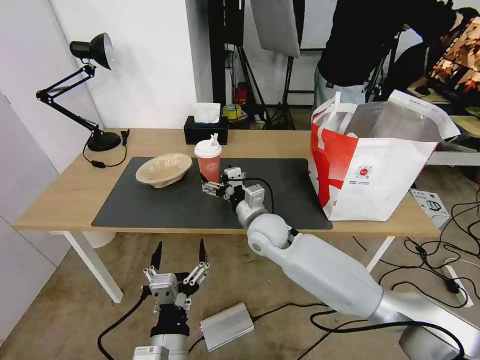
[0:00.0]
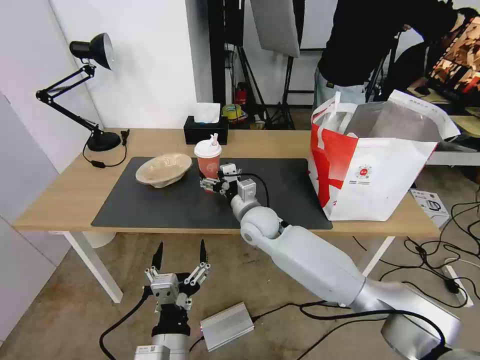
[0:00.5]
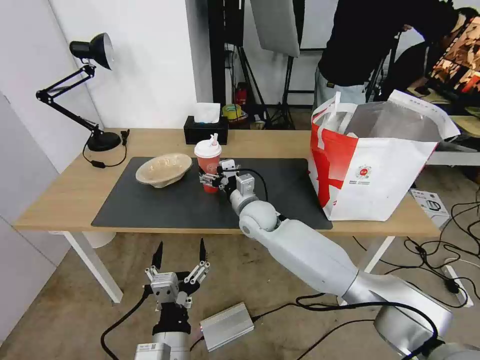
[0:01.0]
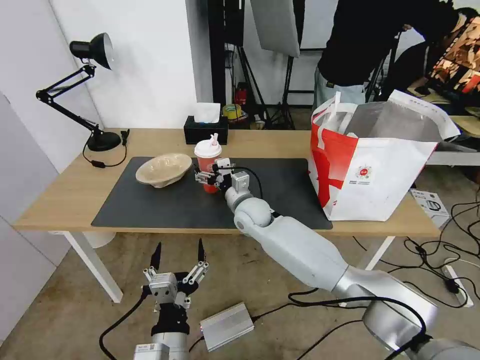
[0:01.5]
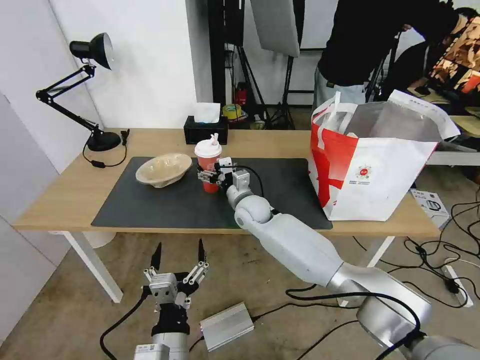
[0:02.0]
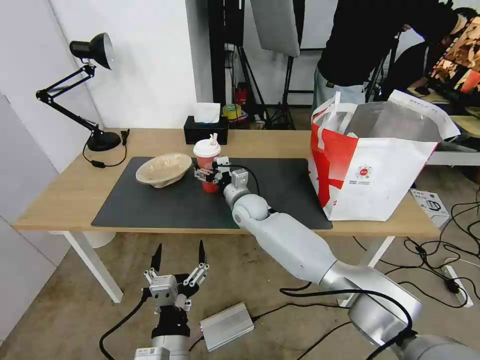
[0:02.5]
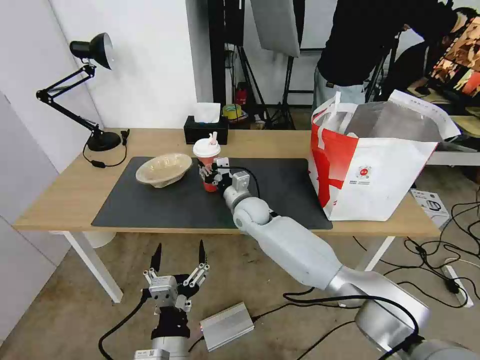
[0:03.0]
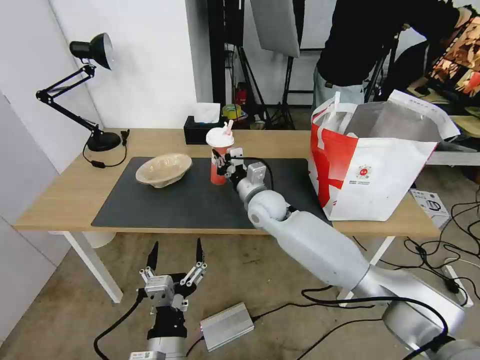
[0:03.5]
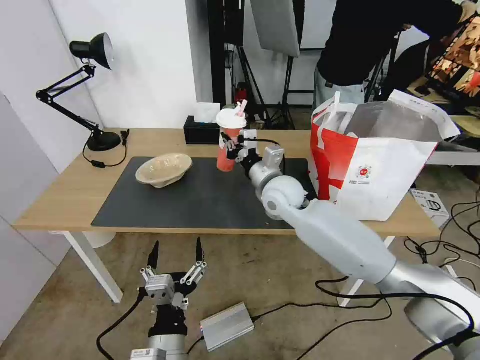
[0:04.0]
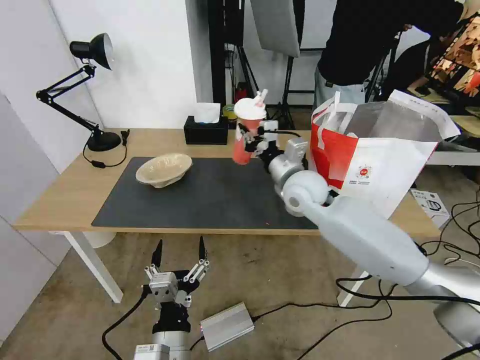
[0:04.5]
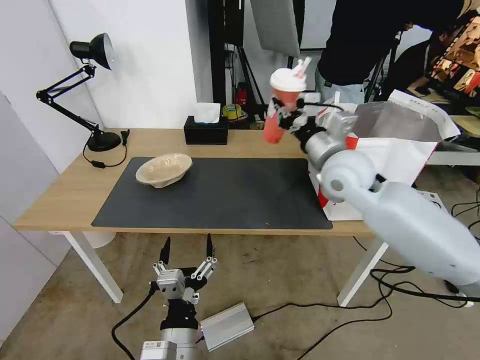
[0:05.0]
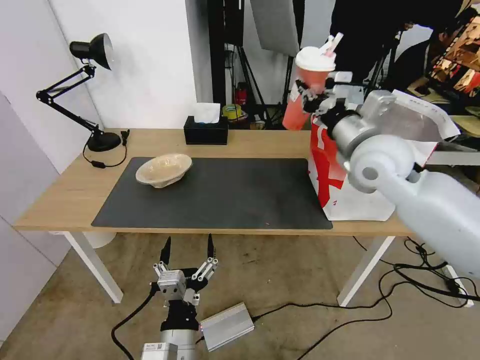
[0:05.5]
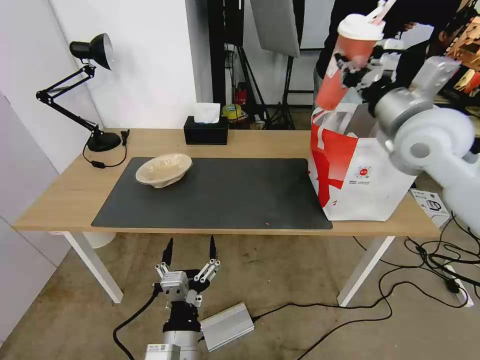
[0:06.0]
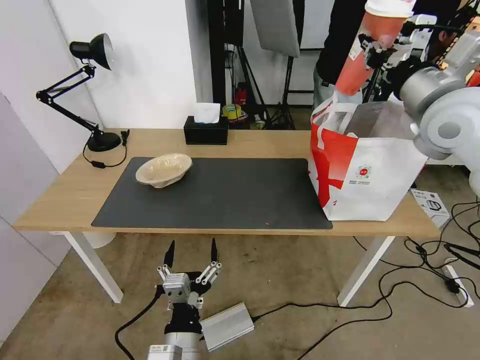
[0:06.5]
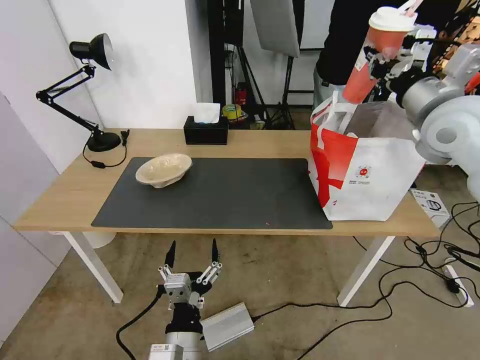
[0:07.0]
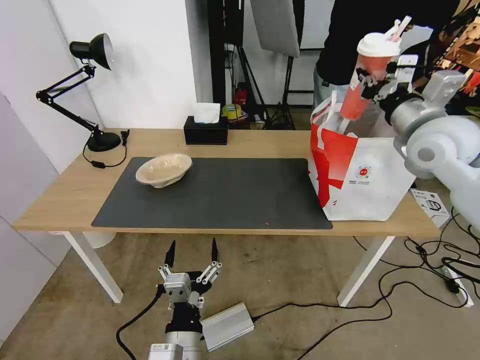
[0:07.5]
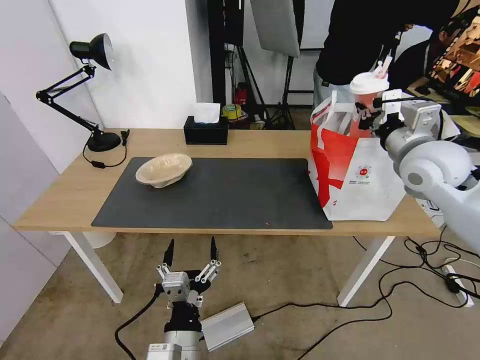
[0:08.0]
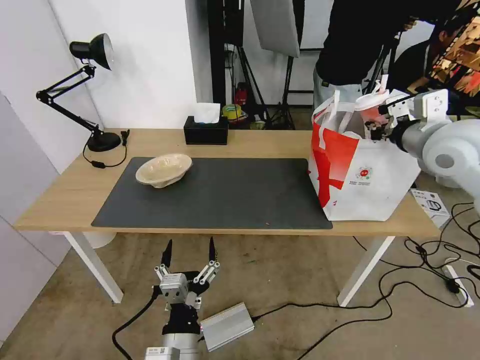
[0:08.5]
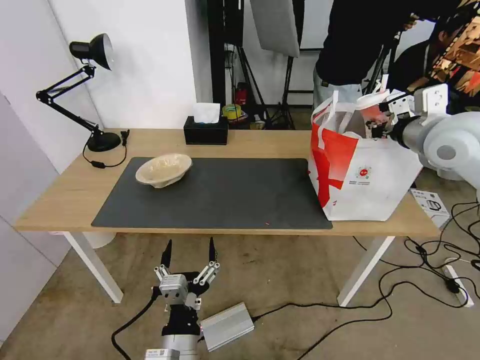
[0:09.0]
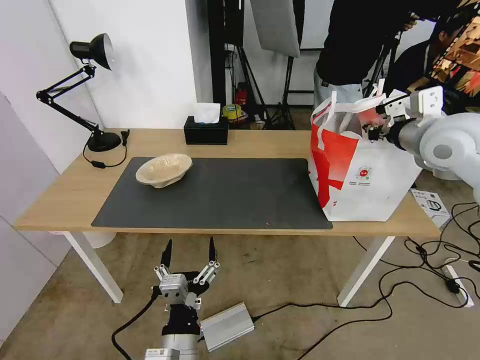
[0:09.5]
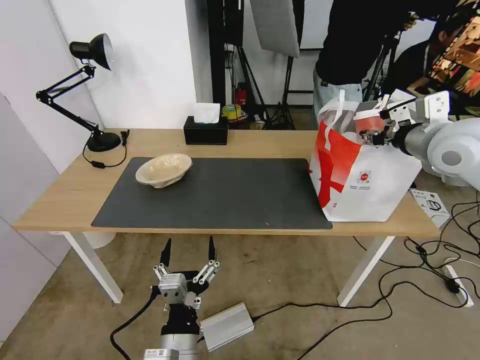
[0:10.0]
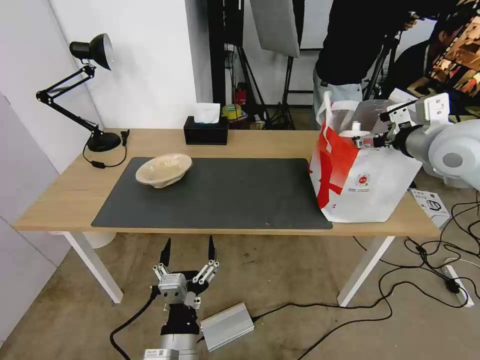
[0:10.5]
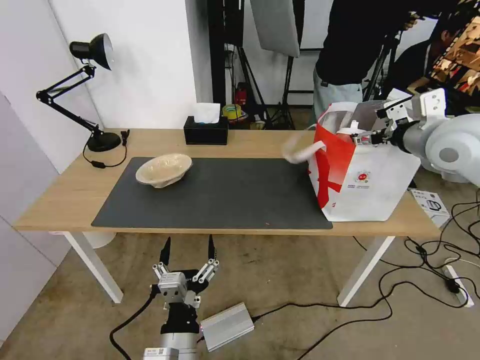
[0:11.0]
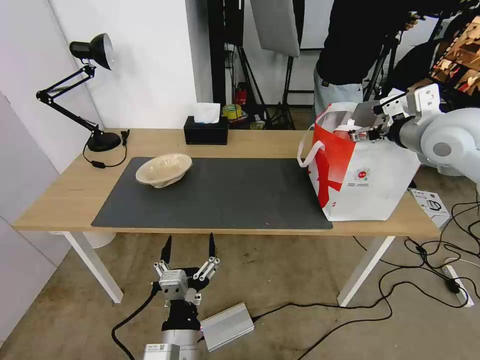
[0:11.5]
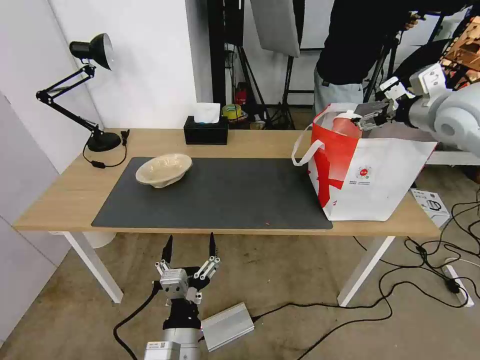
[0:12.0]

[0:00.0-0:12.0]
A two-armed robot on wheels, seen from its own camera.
Task of the whole recording: Pick up the trash from the table and place it into the takeout bag.
0.0 to 2.0 s: The right gripper travels forward by about 10 cm.
2.0 to 4.0 s: The right gripper travels upward and to the right by about 10 cm, and closes up.
4.0 to 6.0 s: The right gripper travels to the right and upward by some 30 cm.
6.0 to 8.0 s: The right gripper goes some 10 cm downward and to the right.
8.0 to 10.0 s: The right gripper changes place by approximately 5 cm, and opens.
10.0 to 12.0 s: The right gripper changes place by about 5 cm, and opens.

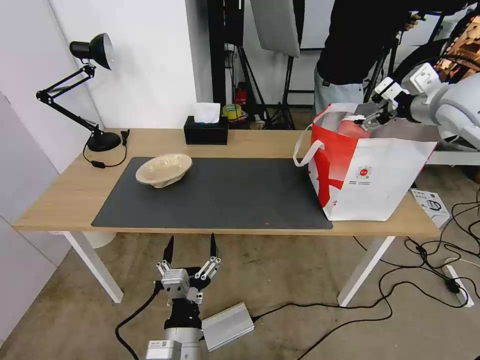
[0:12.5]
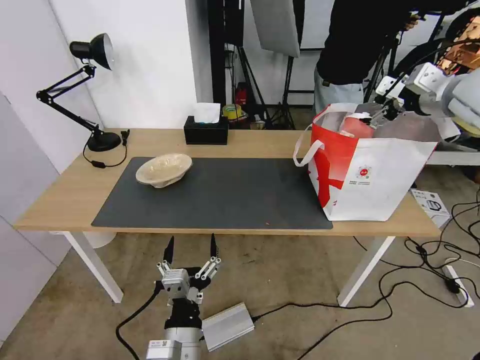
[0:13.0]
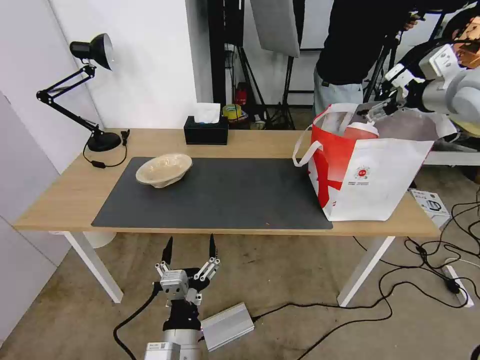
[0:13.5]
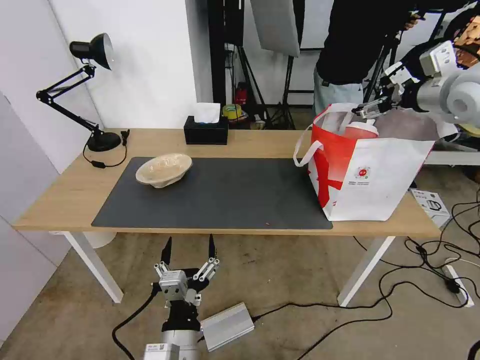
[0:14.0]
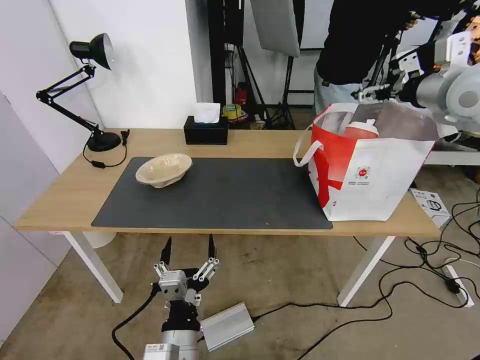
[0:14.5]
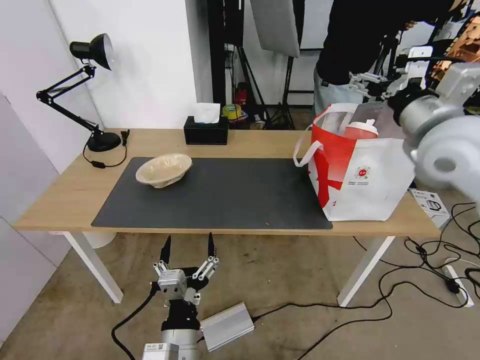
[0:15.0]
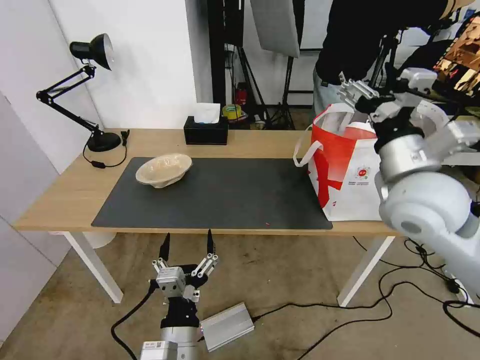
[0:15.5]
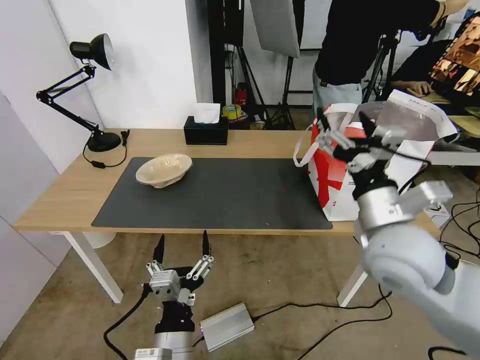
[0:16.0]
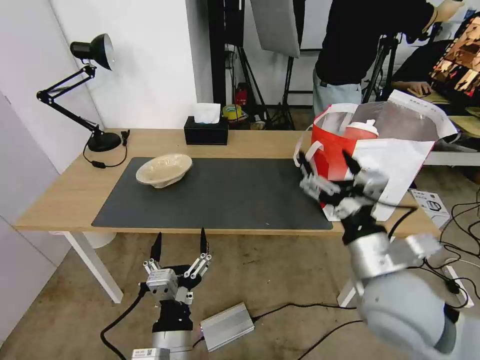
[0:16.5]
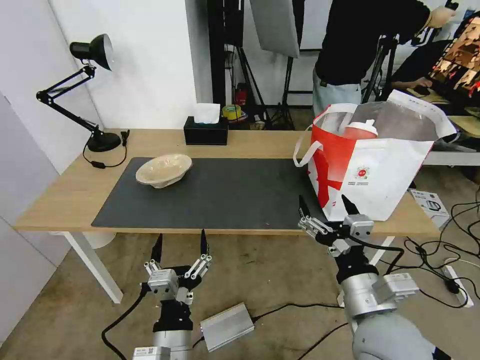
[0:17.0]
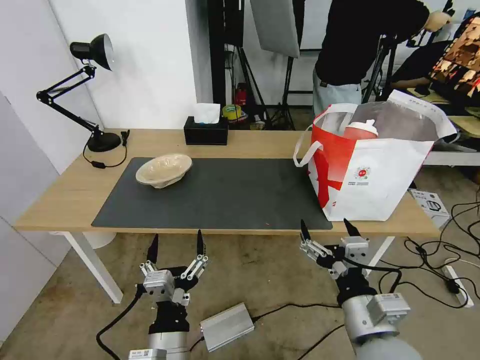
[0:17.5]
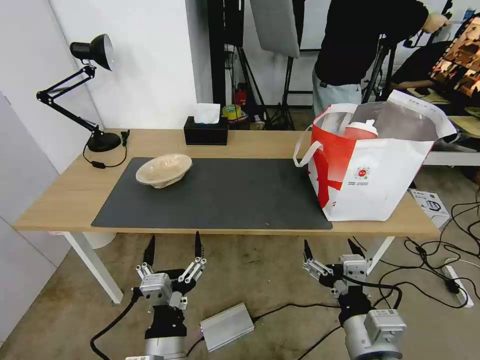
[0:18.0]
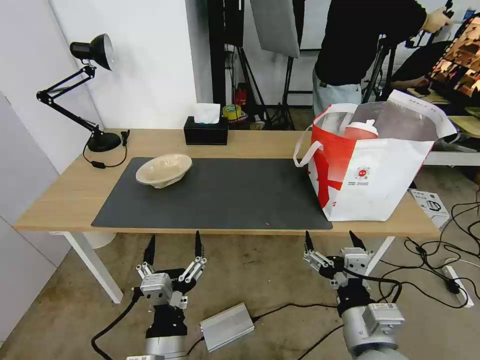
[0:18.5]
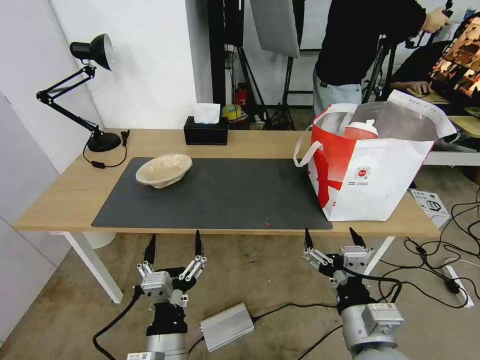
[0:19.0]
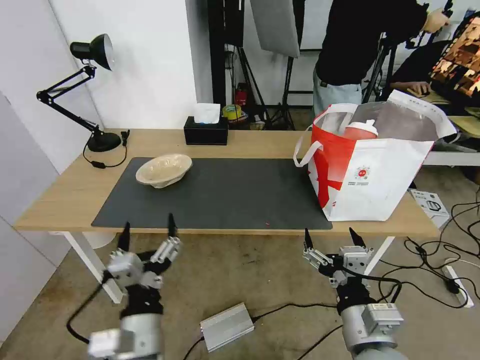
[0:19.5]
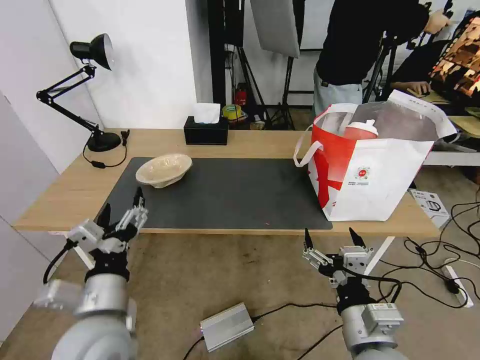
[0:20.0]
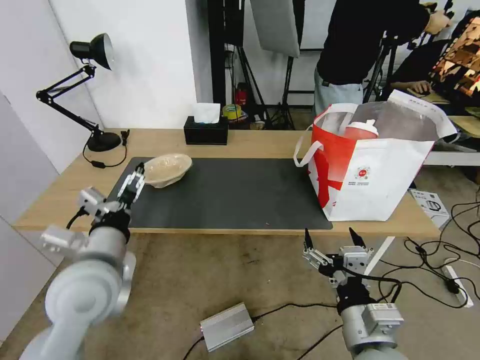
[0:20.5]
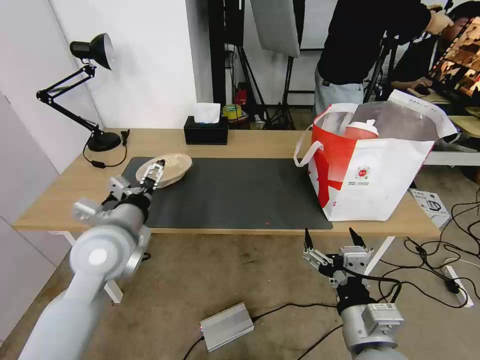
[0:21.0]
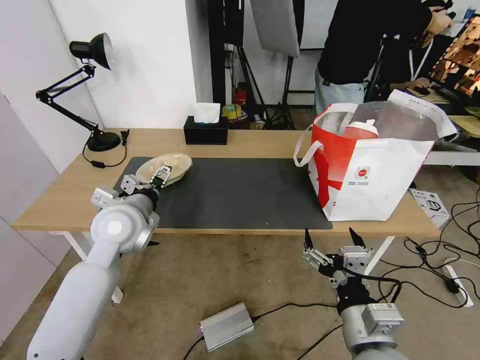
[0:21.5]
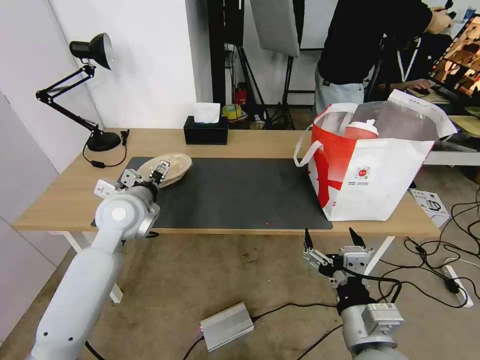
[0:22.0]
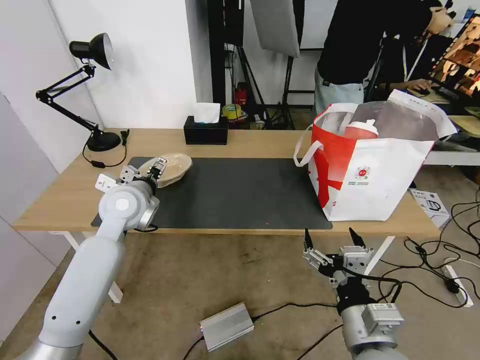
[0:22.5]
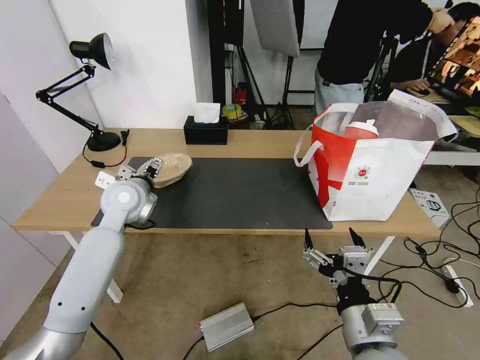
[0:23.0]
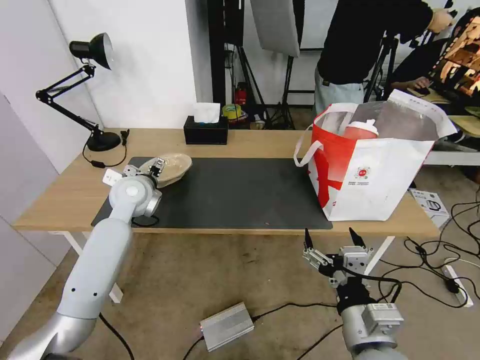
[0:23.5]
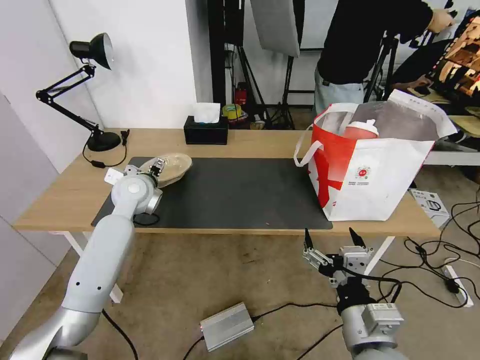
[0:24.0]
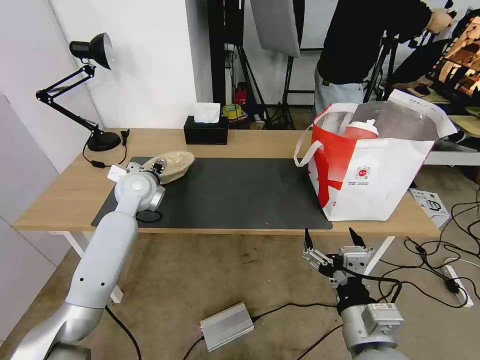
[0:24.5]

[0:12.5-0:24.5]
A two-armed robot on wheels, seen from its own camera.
Task of the whole recording: Pick up the trash from the table and place it into the takeout bag.
14.5 to 16.5 s: The right gripper travels backward, downward and to the left by roughly 40 cm.
16.5 to 18.5 s: The right gripper travels backward and downward by some 10 cm.
18.5 to 20.5 s: The left gripper moves forward, upward and to the left, approximately 20 cm.
20.5 to 22.5 s: The left gripper travels forward by approximately 20 cm.
22.5 to 24.5 s: The left gripper is displaced forward by some 5 cm.

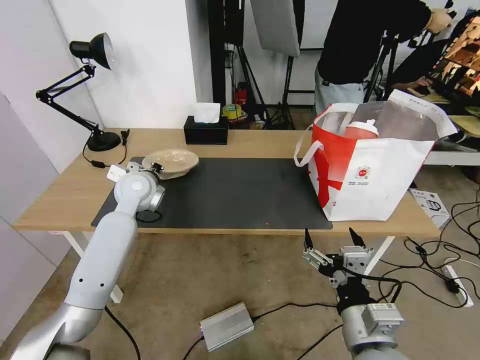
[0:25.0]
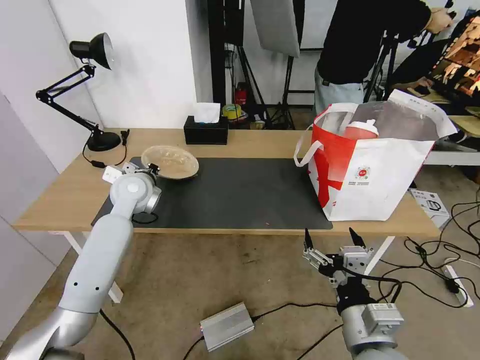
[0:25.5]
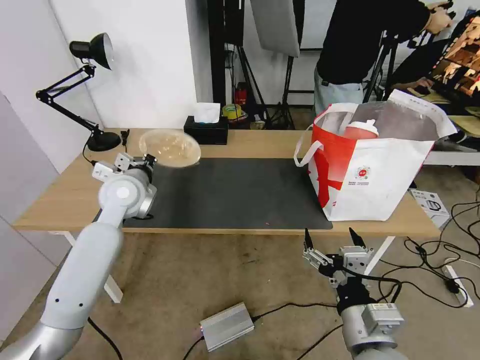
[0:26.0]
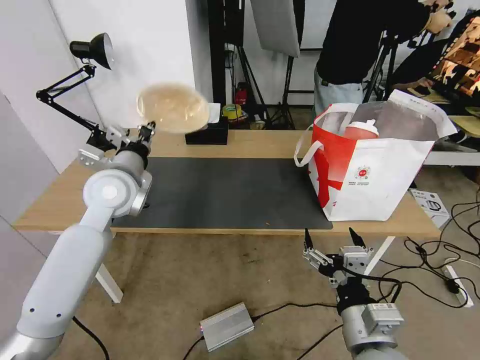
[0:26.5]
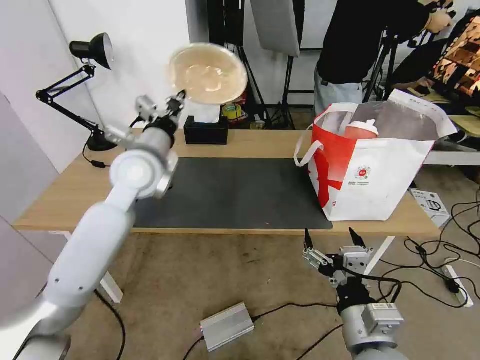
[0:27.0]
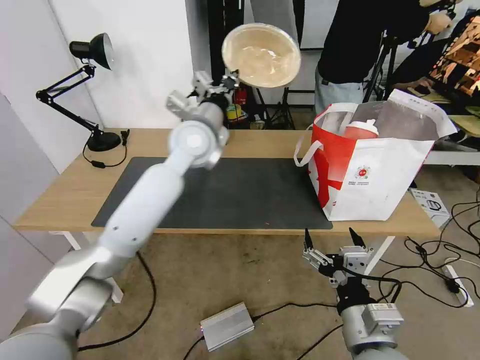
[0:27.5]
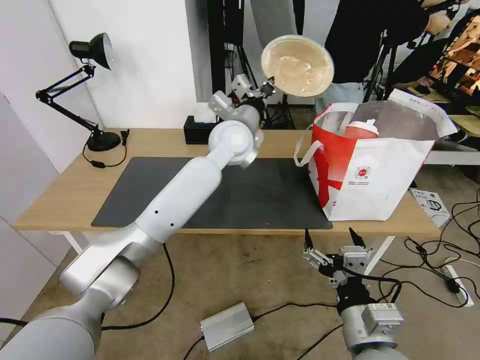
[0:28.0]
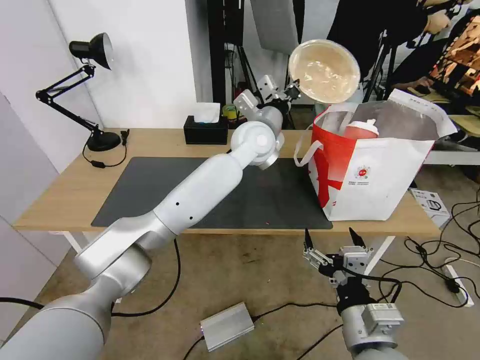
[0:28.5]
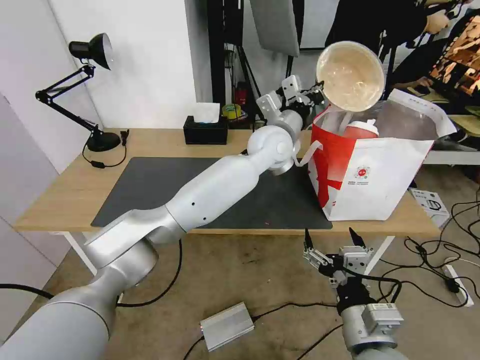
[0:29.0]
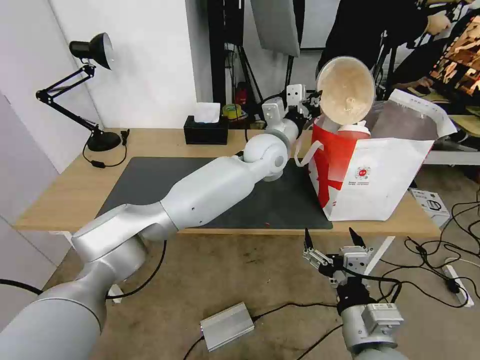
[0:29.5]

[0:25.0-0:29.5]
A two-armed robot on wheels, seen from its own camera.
Task of the whole recording: Pick up the trash from the table and place it into the takeout bag.
25.0 to 27.0 s: The left gripper heads upward, to the right and backward, covering about 15 cm.
27.0 to 29.5 s: The left gripper heads to the right, covering about 25 cm.
